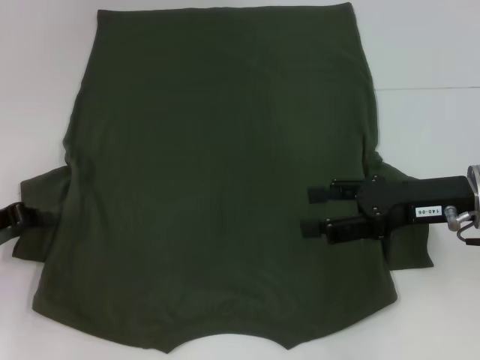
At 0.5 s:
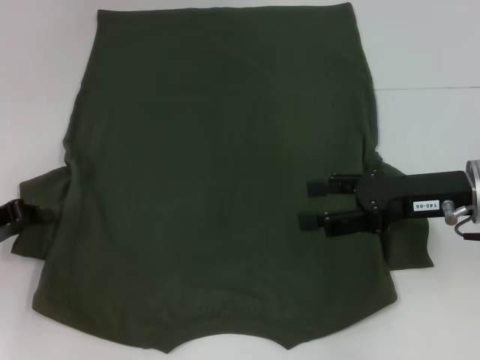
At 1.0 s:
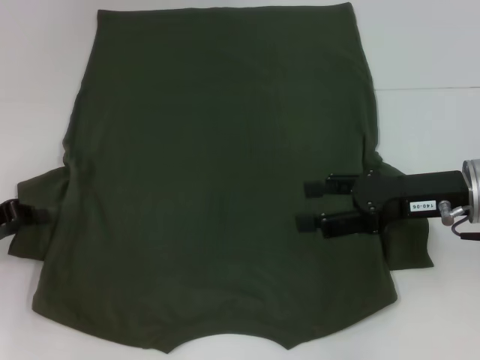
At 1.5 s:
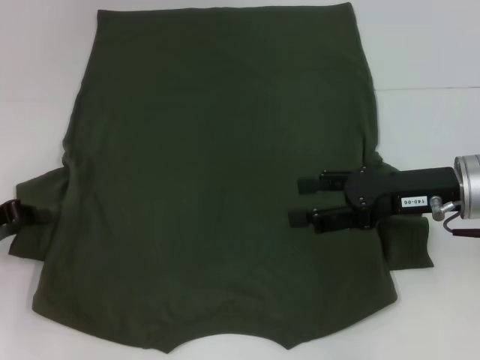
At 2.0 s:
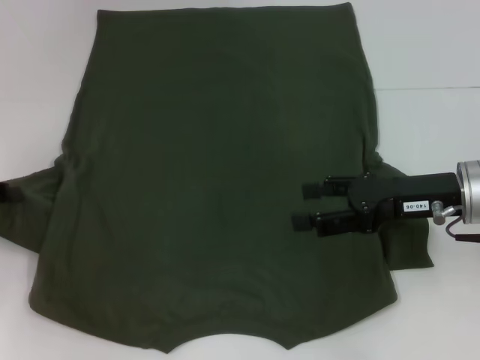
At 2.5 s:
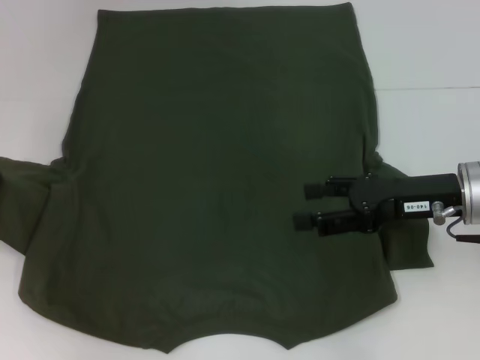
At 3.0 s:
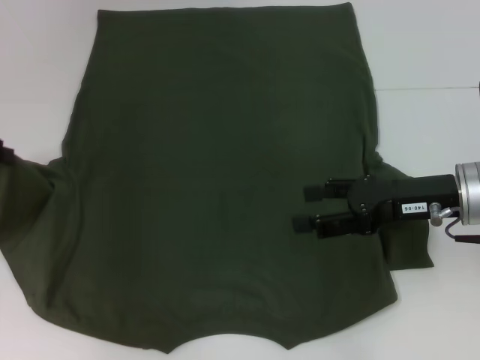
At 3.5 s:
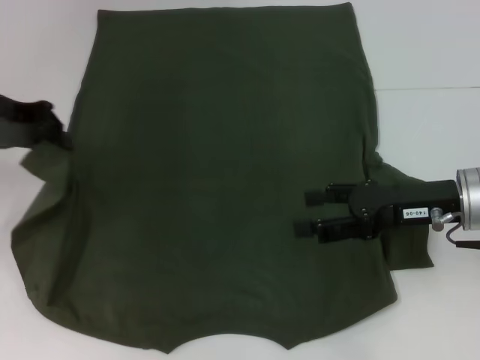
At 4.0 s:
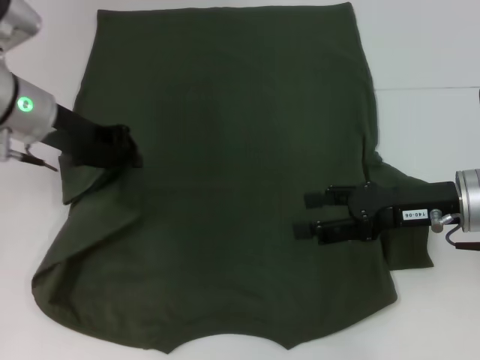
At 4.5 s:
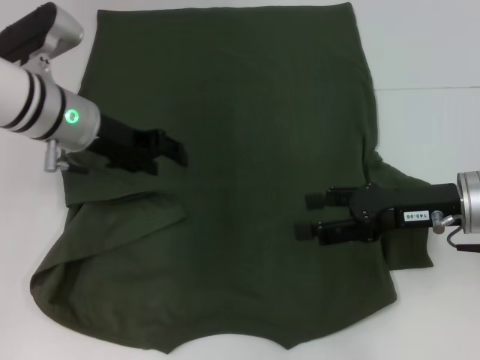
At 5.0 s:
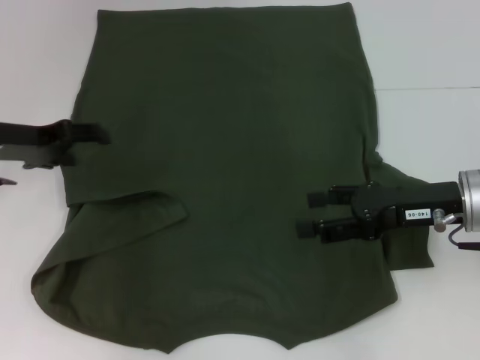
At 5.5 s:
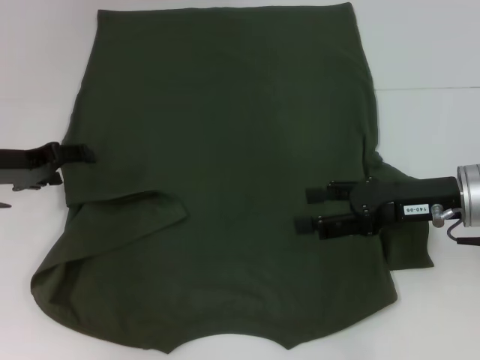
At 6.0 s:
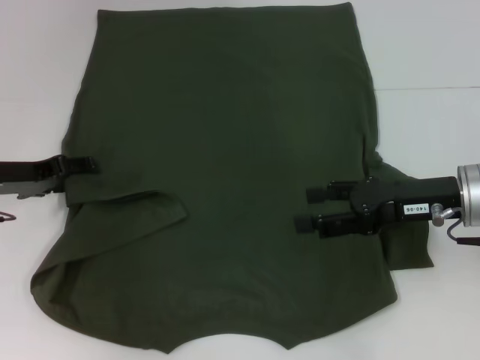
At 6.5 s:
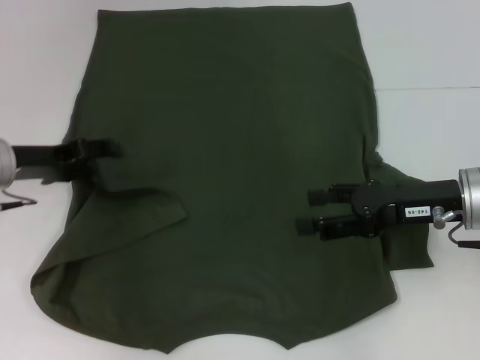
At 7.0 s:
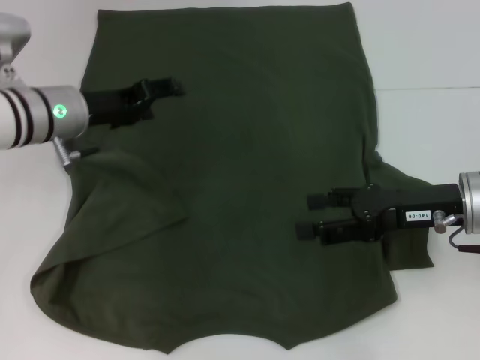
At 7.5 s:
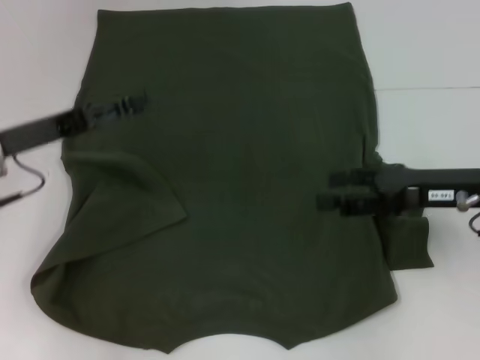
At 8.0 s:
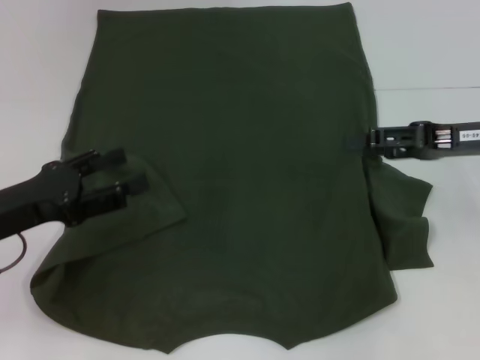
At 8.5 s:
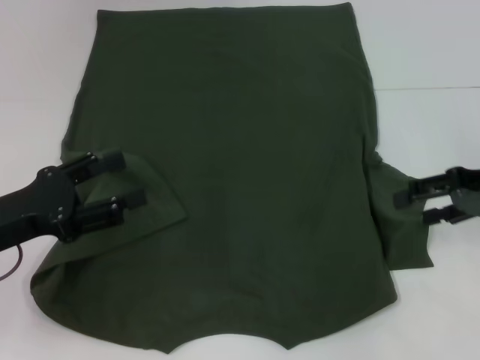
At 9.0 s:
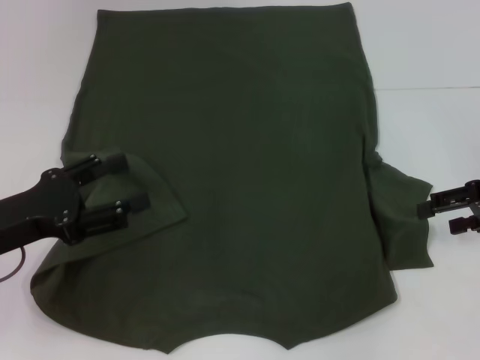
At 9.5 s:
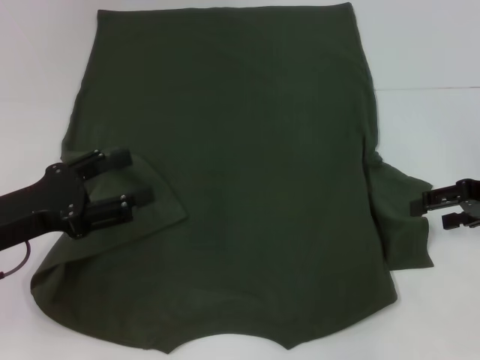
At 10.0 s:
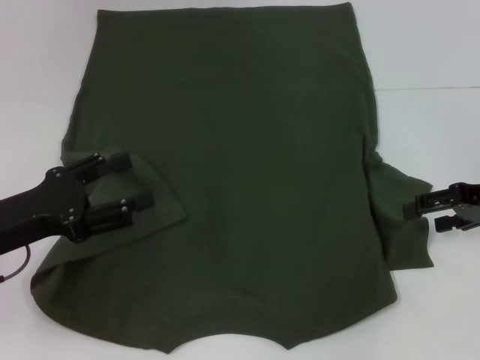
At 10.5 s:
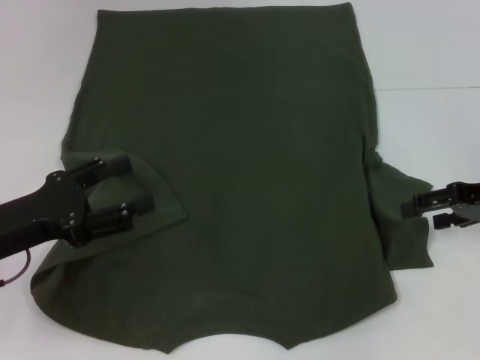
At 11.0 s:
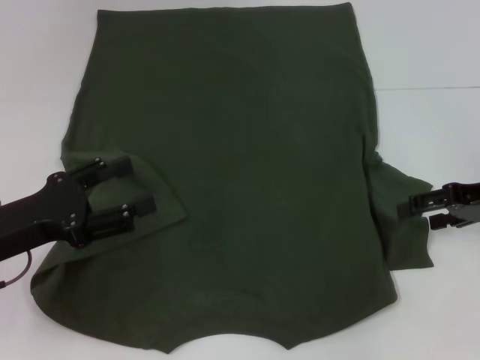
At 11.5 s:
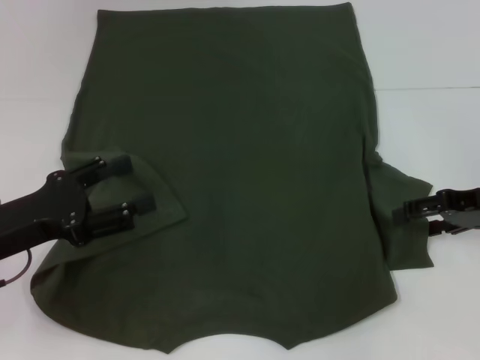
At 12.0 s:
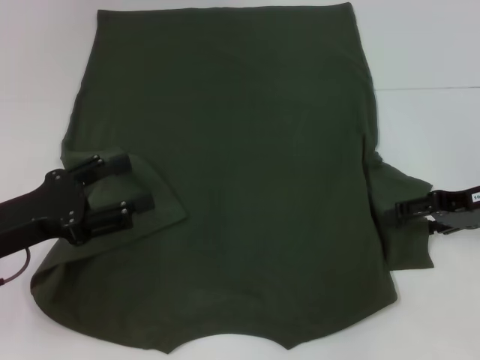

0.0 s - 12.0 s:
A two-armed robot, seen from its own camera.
Step, 0.0 s - 7.0 s: Fold the bottom left sleeve with your left hand.
0.0 s - 2.0 s: The grippers make only small movements.
2.0 s - 4.0 s: The left gripper is displaced to the right, forward and upward by approximately 20 cm.
4.0 s - 6.0 s: The left gripper goes approximately 10 cm downward and to the left, and opens up.
6.0 s - 8.0 s: The right gripper moves to the right, some 5 cm. The left gripper shifts approximately 10 cm backward.
8.0 s - 10.0 s: The right gripper changes place by approximately 5 cm.
10.0 s - 12.0 s: There are only small adjustments of the grippers.

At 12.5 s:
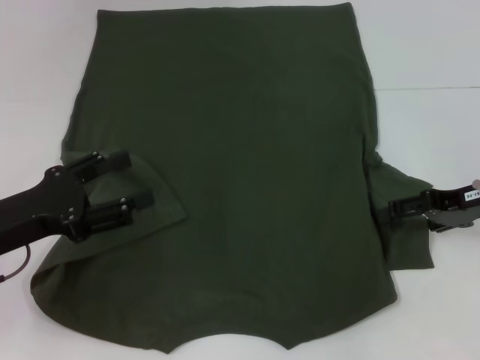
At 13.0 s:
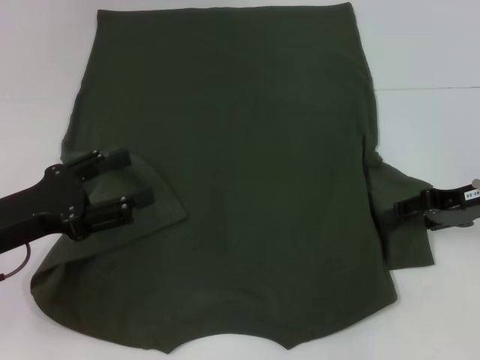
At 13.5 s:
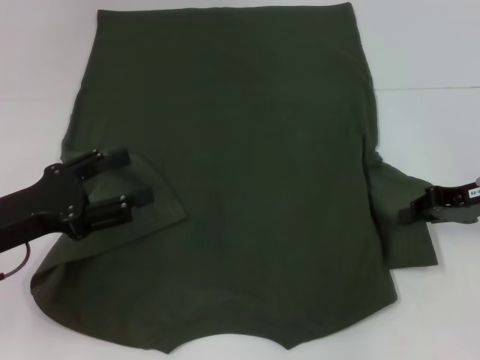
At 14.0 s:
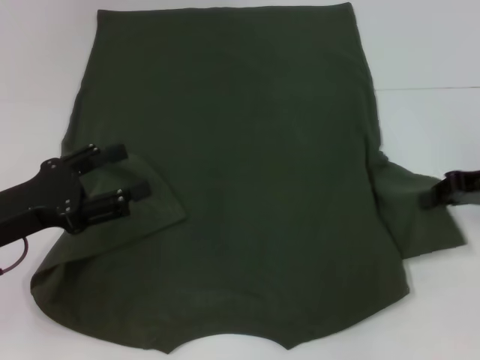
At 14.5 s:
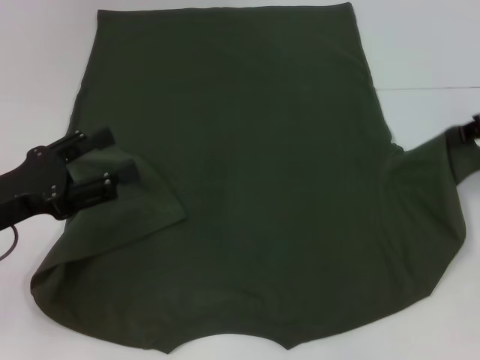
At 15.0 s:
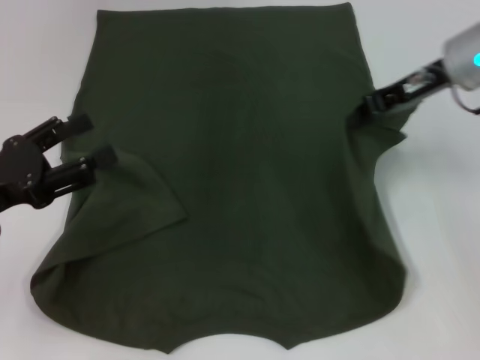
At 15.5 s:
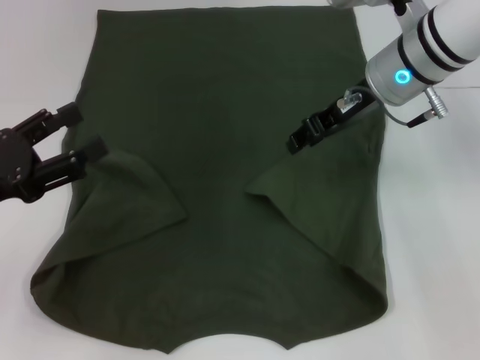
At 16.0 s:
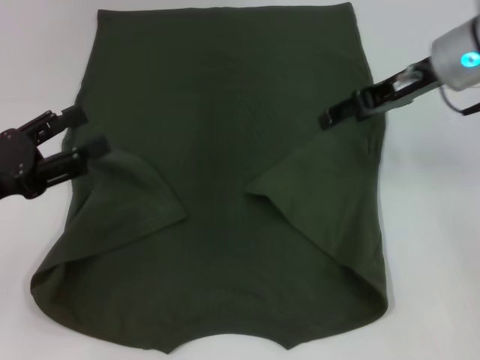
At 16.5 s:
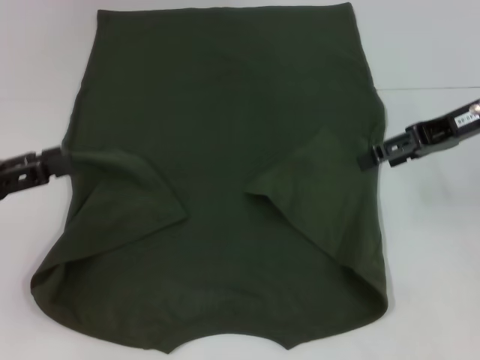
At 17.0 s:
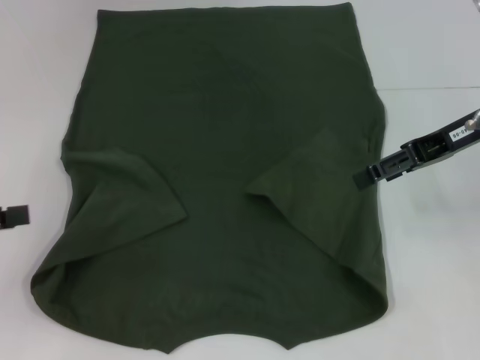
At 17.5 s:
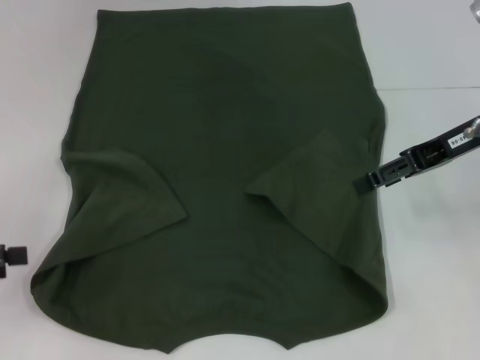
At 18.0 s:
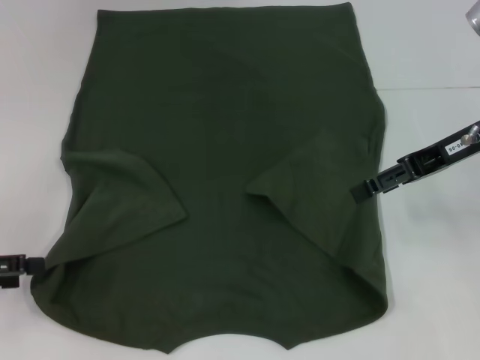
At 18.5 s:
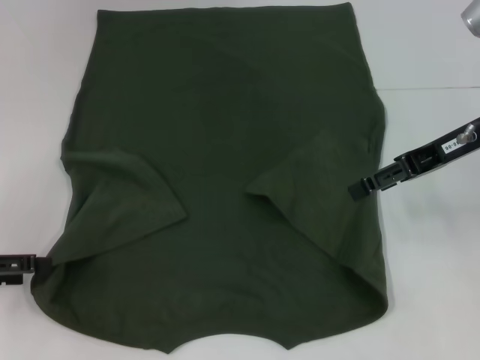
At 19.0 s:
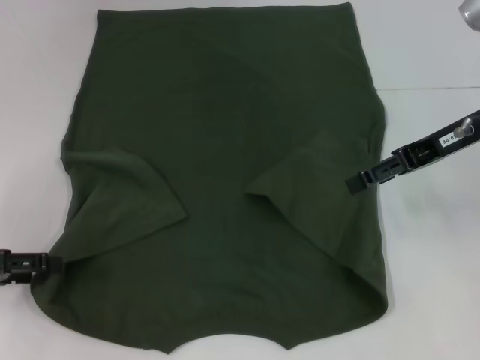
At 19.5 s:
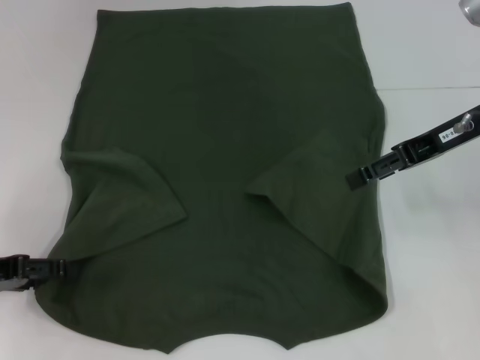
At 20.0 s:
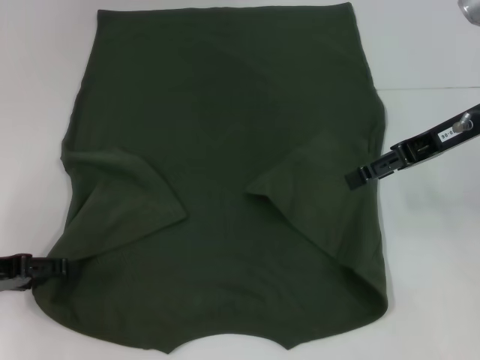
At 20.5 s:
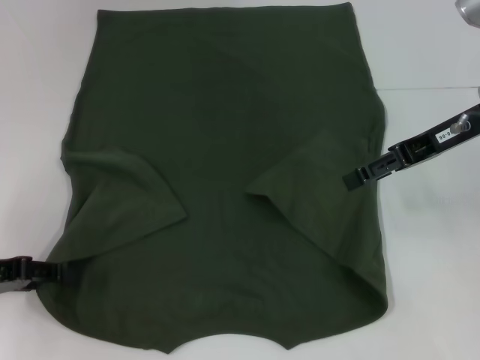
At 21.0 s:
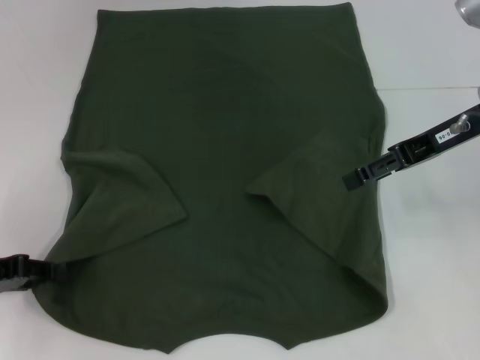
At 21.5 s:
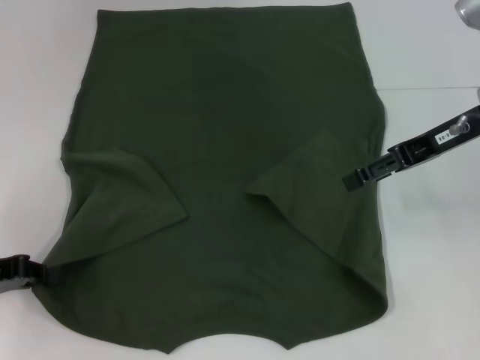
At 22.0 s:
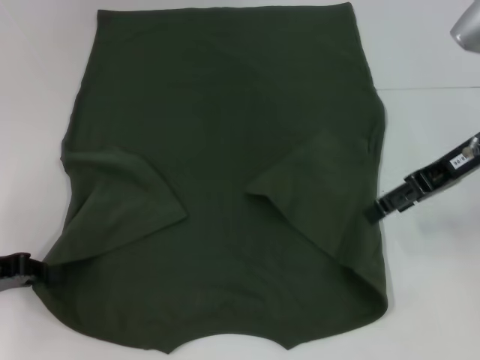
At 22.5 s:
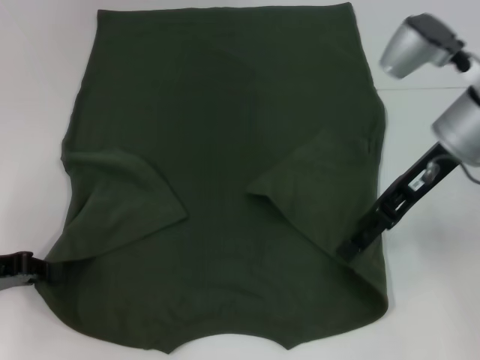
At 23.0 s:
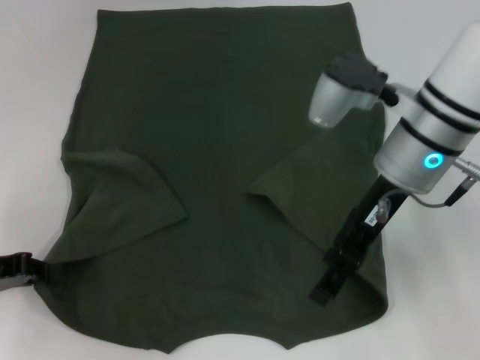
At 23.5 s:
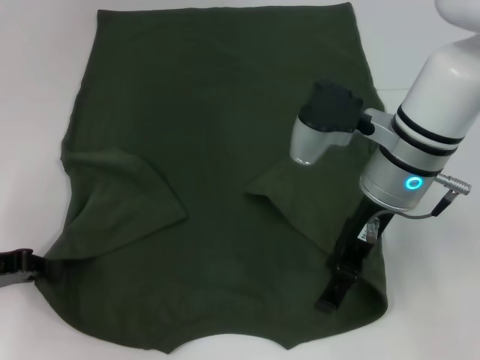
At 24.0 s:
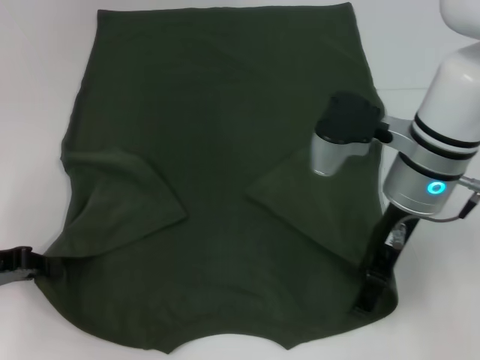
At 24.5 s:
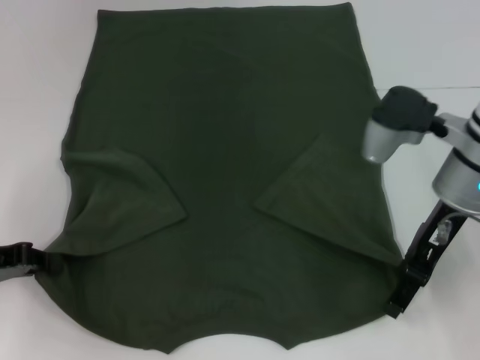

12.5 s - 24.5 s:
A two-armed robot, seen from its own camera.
Step, 12.5 s - 15.5 s: Fold the bottom right sleeve with your right hand.
Step, 16.0 s - 21.5 s: Grab the bottom left corner with your left hand.
12.5 s - 14.5 s: The right gripper shifts roughly 10 cm upward, and closes up.
14.5 s - 16.5 s: The grippers both shift to the left by approximately 5 cm. The right gripper opens up.
16.5 s - 18.5 s: The left gripper ends up roughly 5 cm from where it was.
18.5 s - 20.5 s: The grippers move only a little.
20.5 s - 22.5 s: The right gripper travels to the left by some 5 cm.

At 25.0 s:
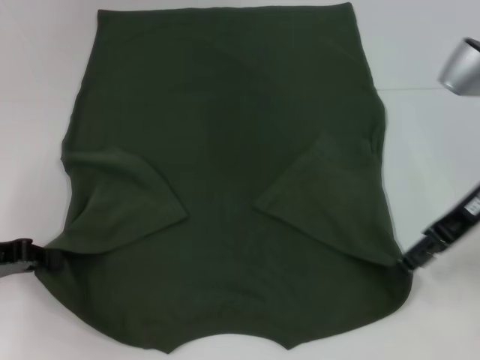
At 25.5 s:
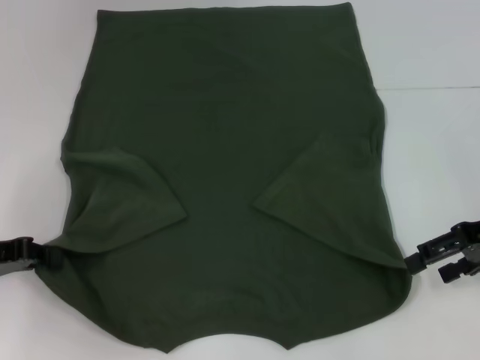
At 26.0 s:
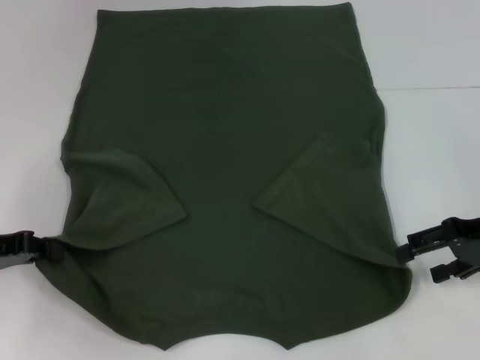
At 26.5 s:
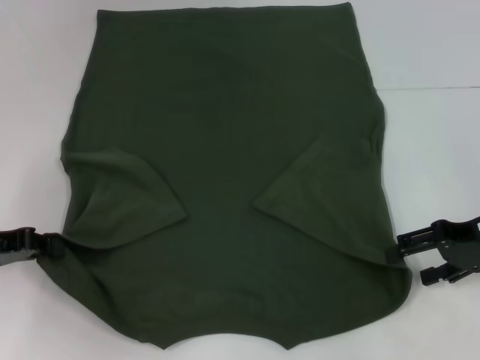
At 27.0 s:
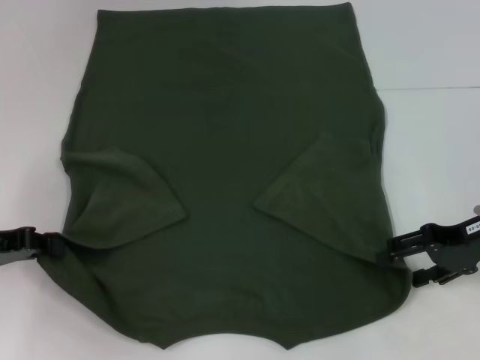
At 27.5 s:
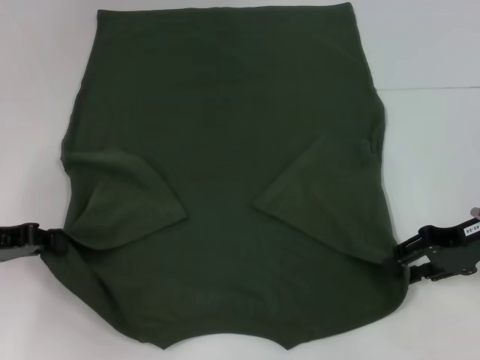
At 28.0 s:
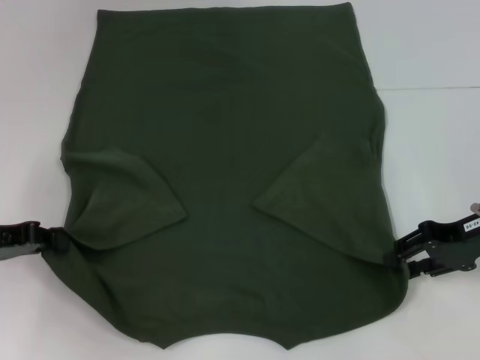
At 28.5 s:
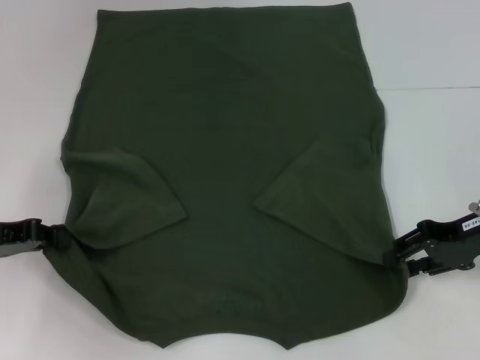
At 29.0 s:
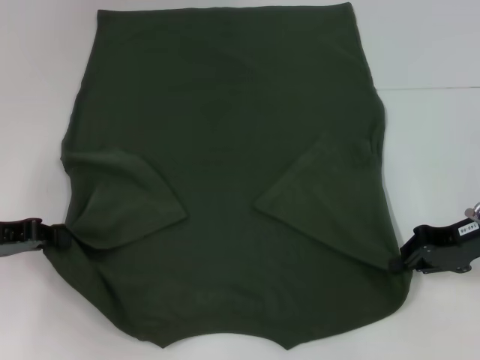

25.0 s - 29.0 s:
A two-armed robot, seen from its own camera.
25.0 s - 27.0 s: The right gripper heads downward, covering about 5 cm.
27.0 s - 29.0 s: The right gripper closes.
